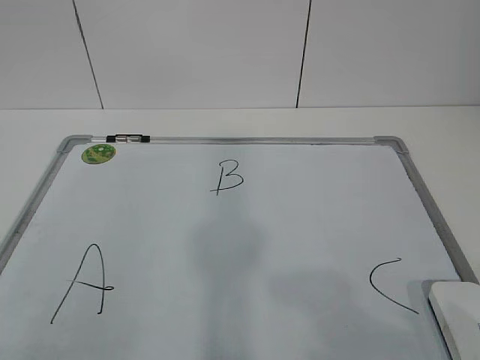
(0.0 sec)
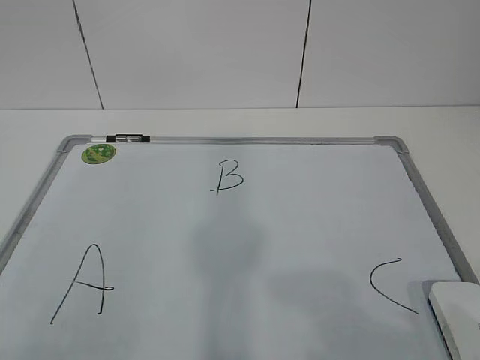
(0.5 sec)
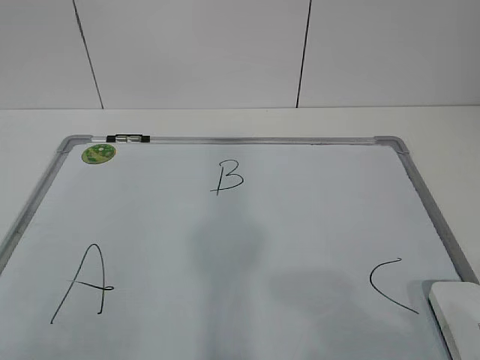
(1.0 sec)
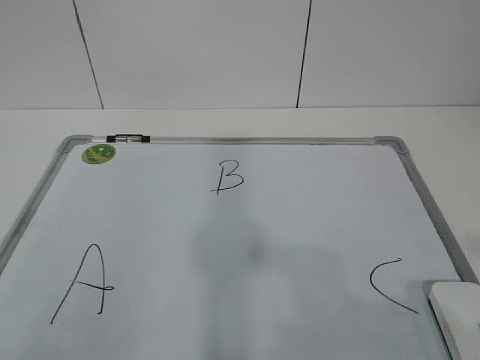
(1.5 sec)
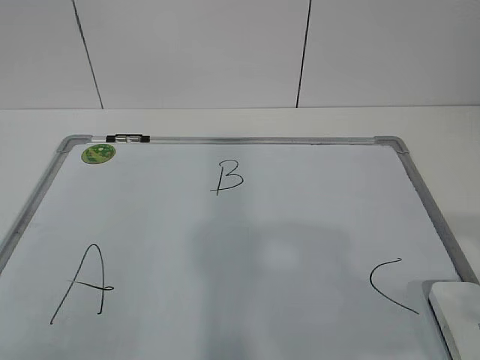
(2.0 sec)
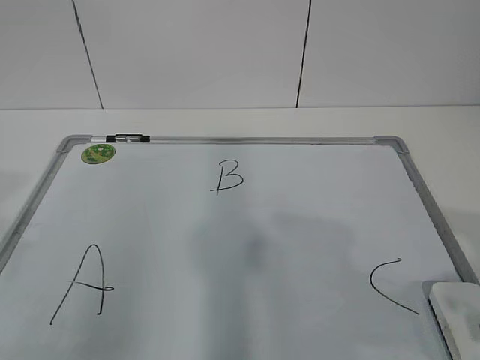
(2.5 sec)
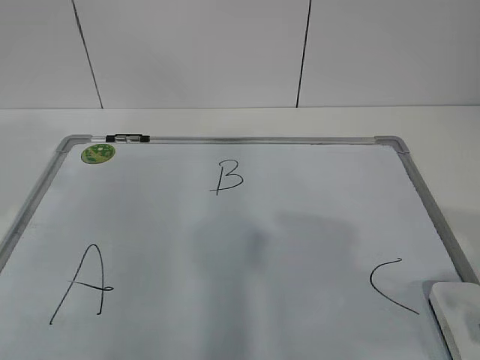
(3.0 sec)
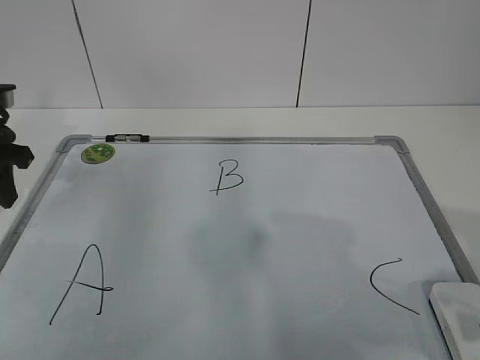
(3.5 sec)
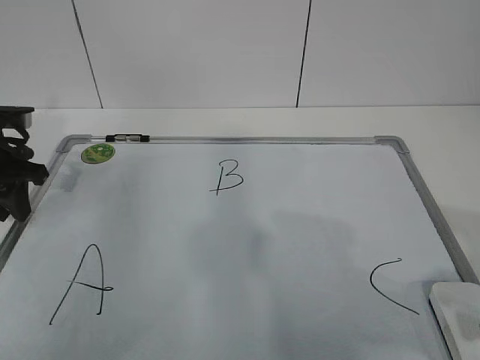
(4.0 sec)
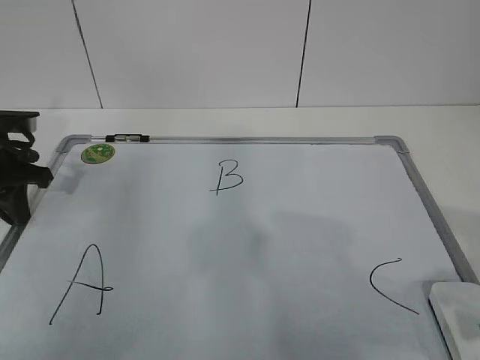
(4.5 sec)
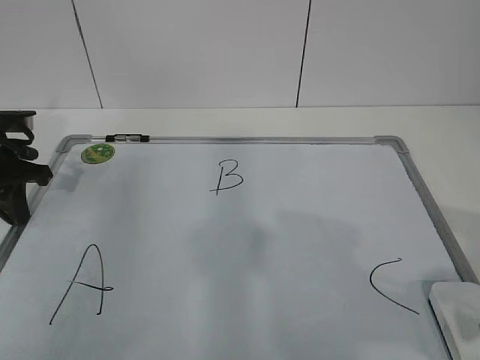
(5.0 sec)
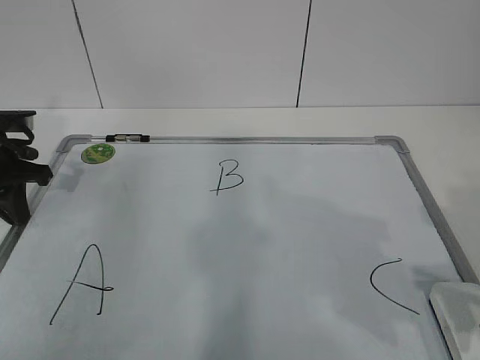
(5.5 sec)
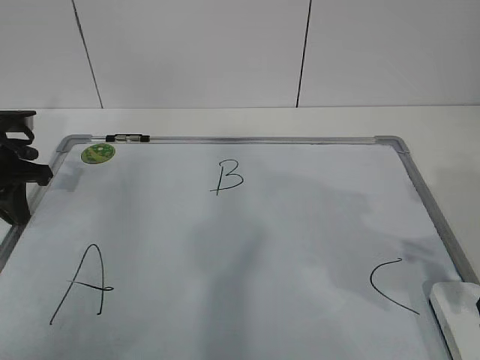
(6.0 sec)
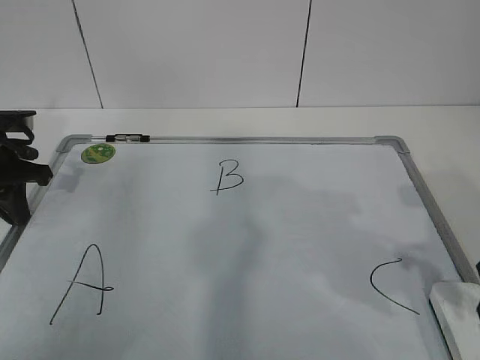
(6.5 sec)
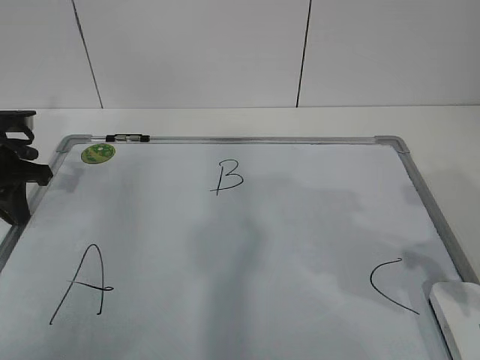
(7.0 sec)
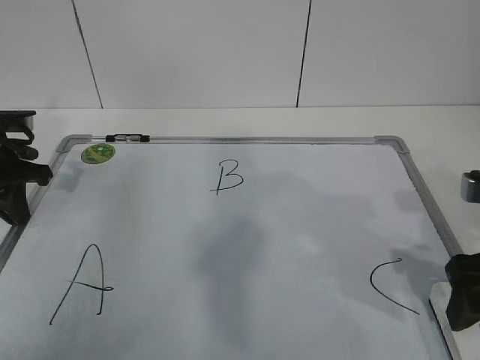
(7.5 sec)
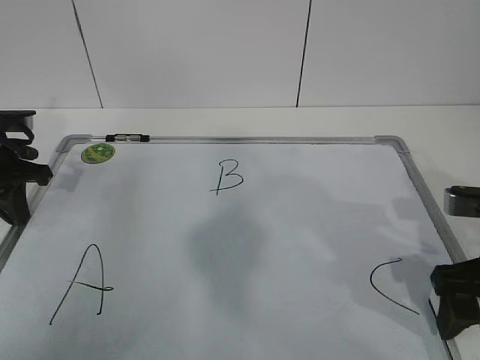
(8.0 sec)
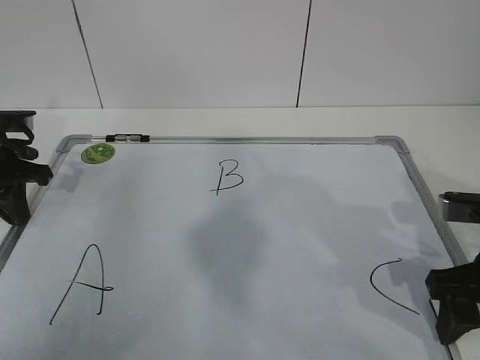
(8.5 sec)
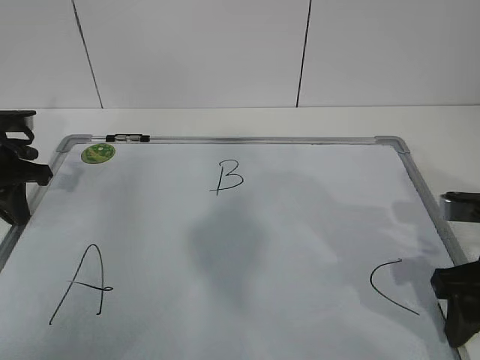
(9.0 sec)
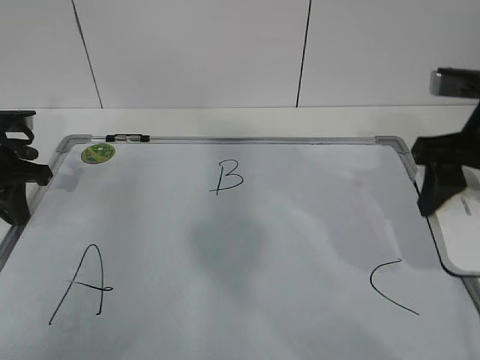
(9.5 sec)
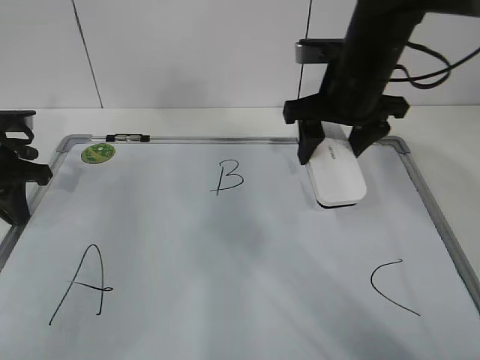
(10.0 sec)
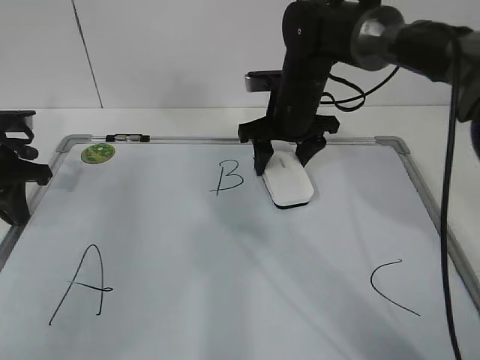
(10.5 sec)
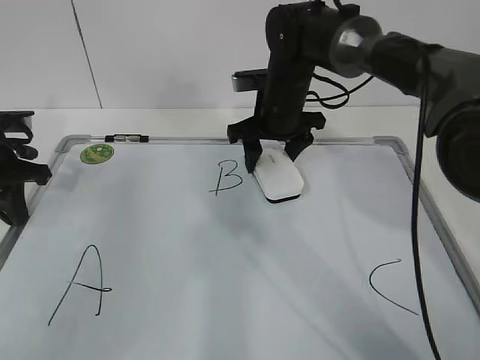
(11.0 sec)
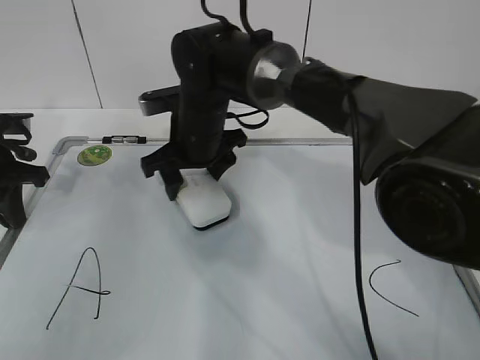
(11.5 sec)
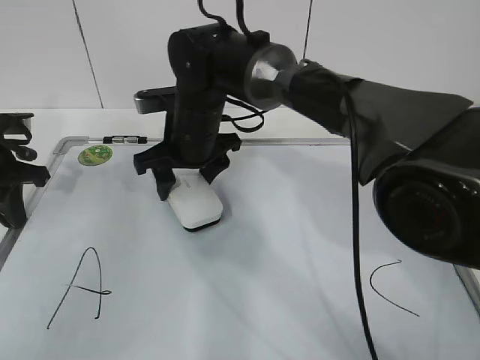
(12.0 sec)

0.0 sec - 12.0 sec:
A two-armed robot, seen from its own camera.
Task of the whole recording: pick up the eraser on the blackboard and erase the letter "B".
Step, 0.0 sec - 3.5 sec: Hold the drawing board steady with your left hand.
Step, 4.0 sec - 6.5 sec: Grab the eraser with your right hand.
Step, 7.0 sec - 11.5 sec: Erase the letter B with your right hand.
2.0 sec - 4.0 sec: The left gripper moves forward, roughly 35 cm.
4.0 sec - 6.0 sec: The right gripper travels forward by about 10 cm, and opens, then closes once more. Meanwhile the left gripper closes.
6.0 sec - 8.0 sec: The right gripper is displaced downward by roughly 5 cm, and opens.
8.0 sec - 10.0 sec: The right gripper shifts about 20 cm forward, to the left and upward, and closes.
10.0 sec - 12.0 sec: The right gripper shifts some 20 cm to the left and downward.

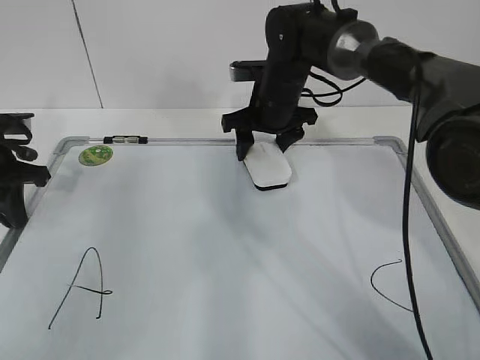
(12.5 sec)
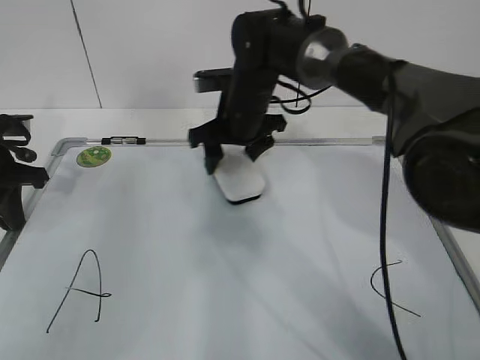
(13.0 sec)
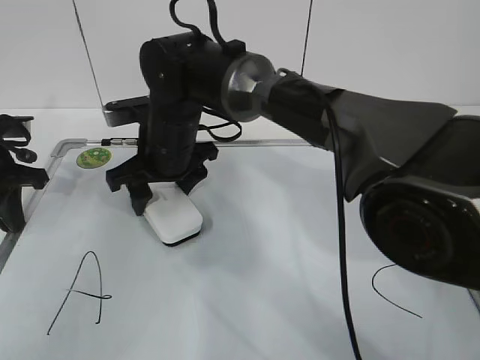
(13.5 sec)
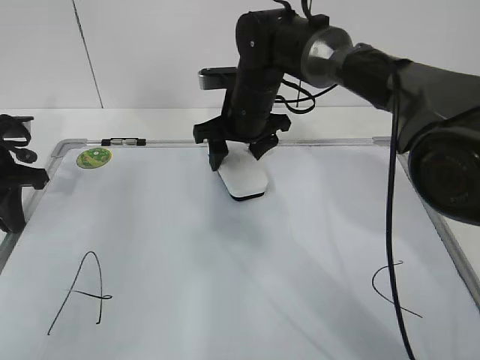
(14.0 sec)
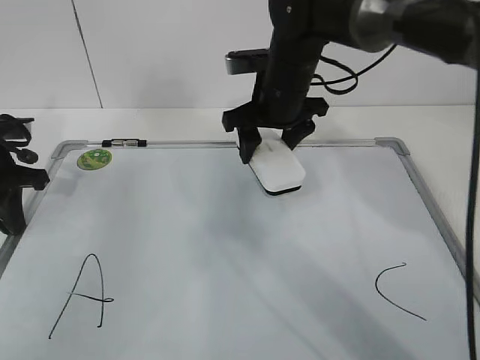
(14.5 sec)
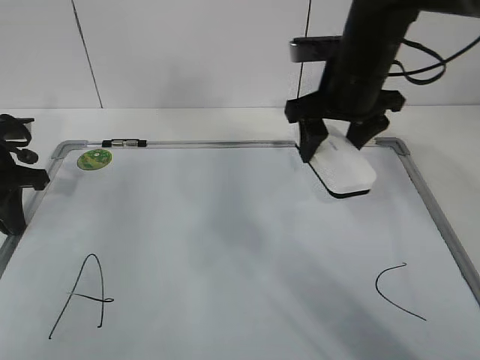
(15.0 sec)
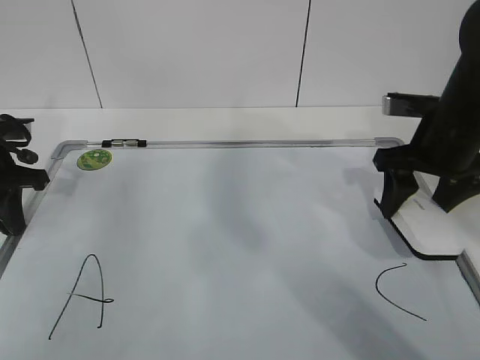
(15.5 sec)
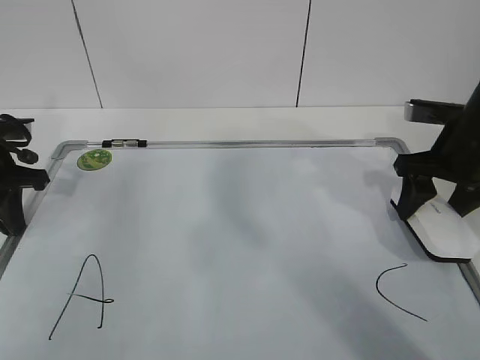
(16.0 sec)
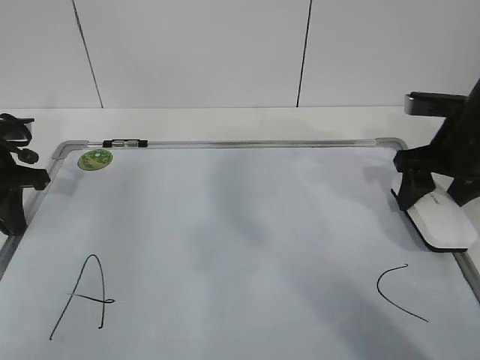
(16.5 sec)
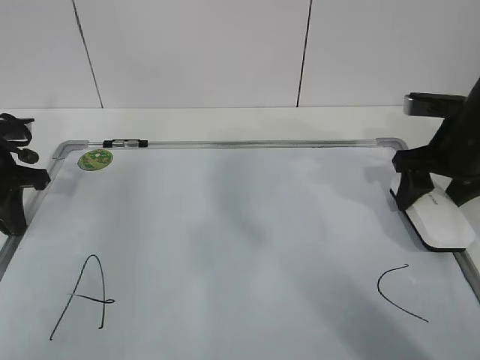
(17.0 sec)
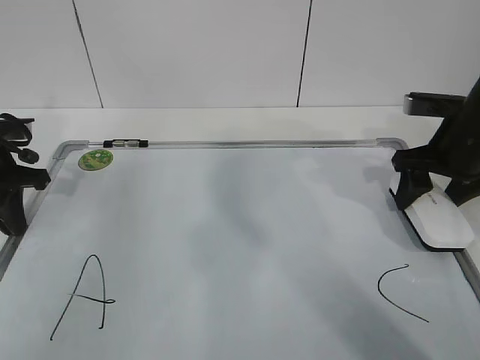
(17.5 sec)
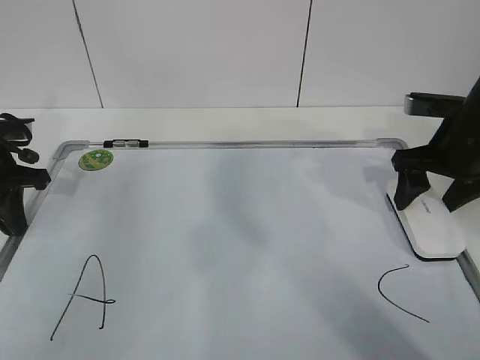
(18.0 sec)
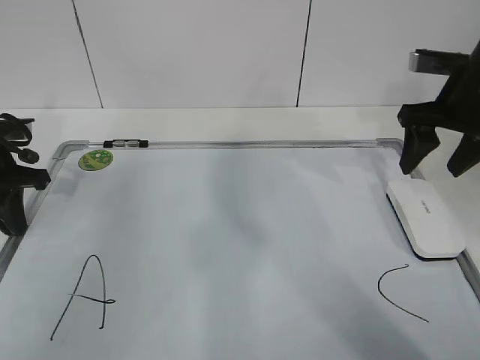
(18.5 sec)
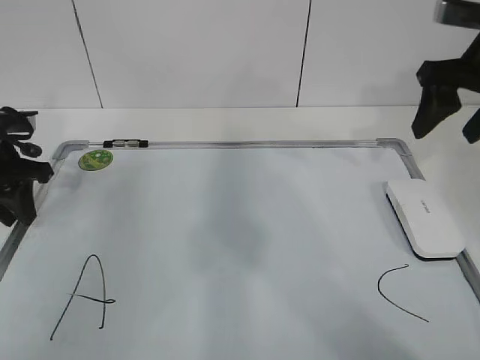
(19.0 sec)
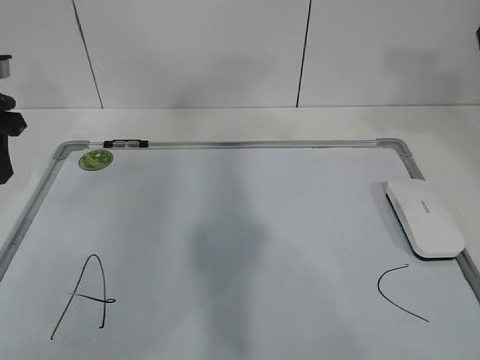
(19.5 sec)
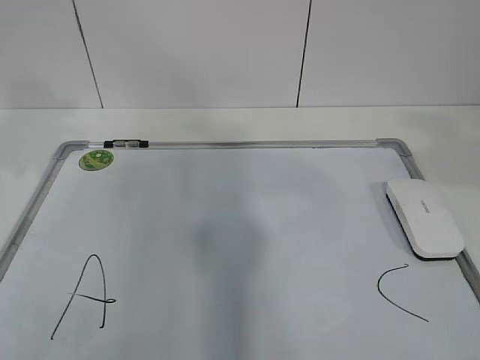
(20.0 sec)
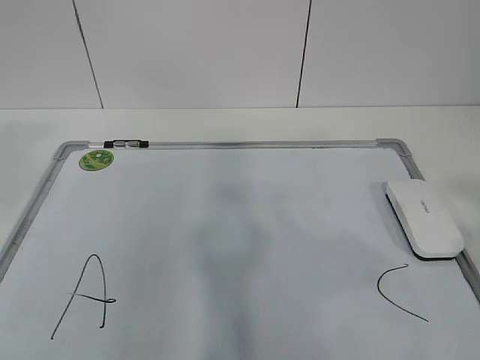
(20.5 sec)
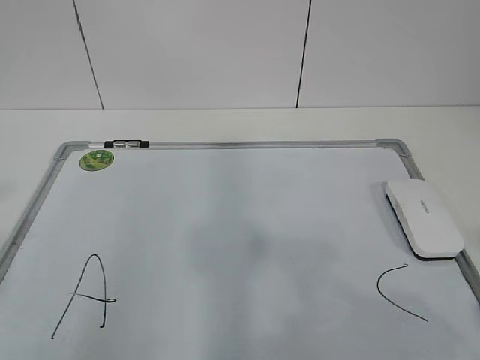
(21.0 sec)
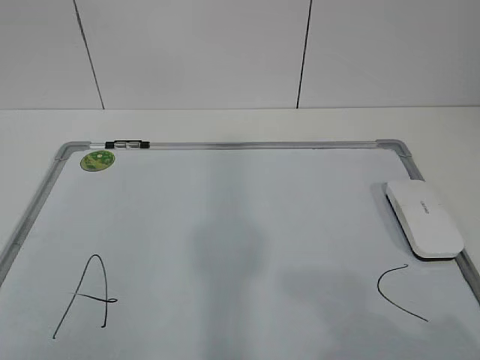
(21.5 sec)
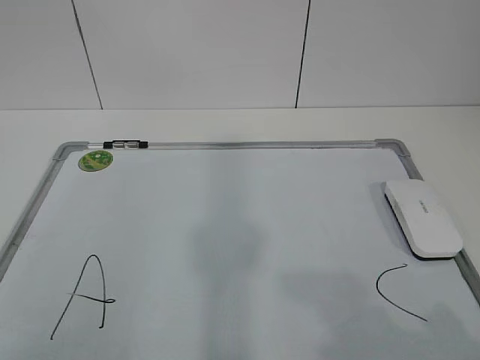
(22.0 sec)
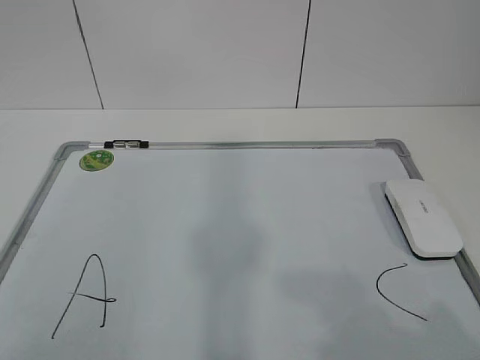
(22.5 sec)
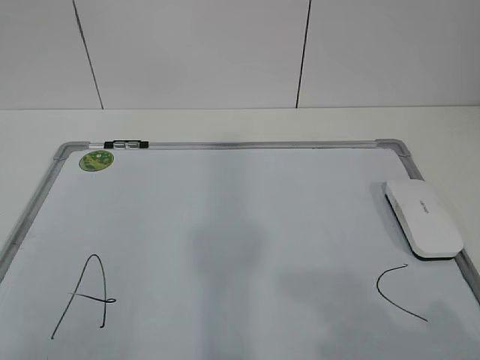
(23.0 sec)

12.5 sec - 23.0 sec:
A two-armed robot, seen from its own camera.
Task of the whole recording: pick up the eraser on the blackboard and erase the letter "B".
Step, 12.5 sec - 15.0 sec: Put down the eraser with your right hand.
12.5 sec - 14.5 sec: The right gripper reaches about 15 cm to the left, then returns.
14.5 sec - 16.5 sec: The right gripper moves to the right, some 20 cm.
16.5 sec - 19.0 sec: The right gripper moves upward, about 10 cm, and opens. The left gripper opens its fingers.
19.0 sec - 21.0 sec: The left gripper travels backward and upward by roughly 35 cm; the right gripper moves backward, roughly 35 cm.

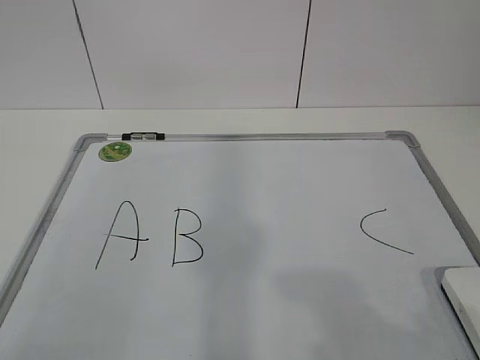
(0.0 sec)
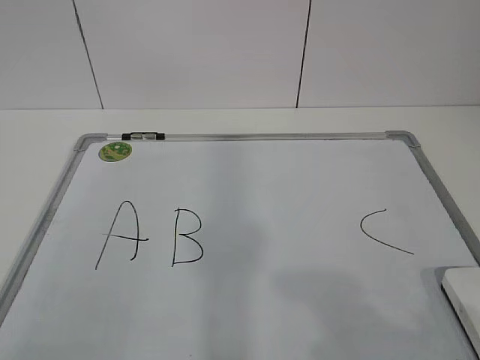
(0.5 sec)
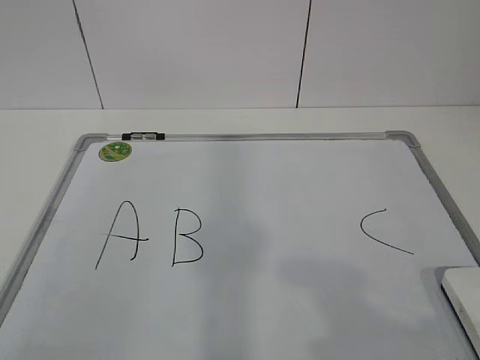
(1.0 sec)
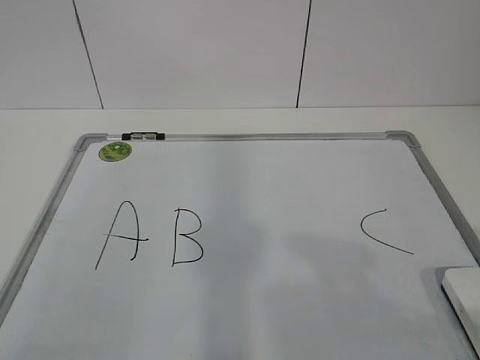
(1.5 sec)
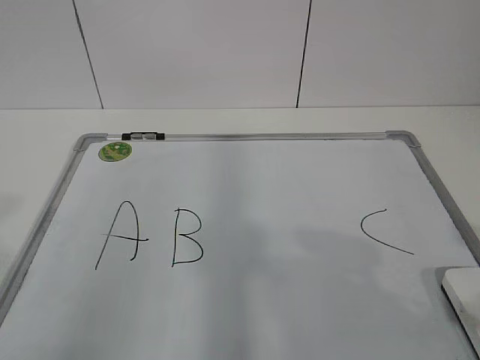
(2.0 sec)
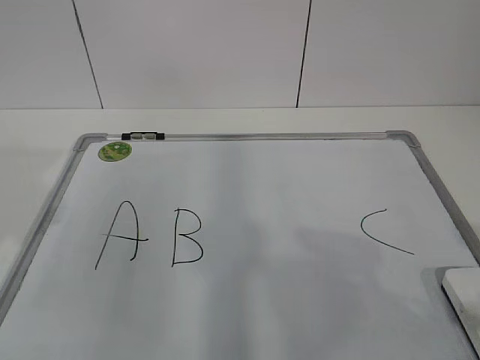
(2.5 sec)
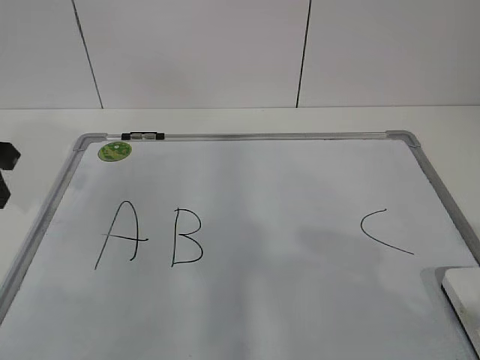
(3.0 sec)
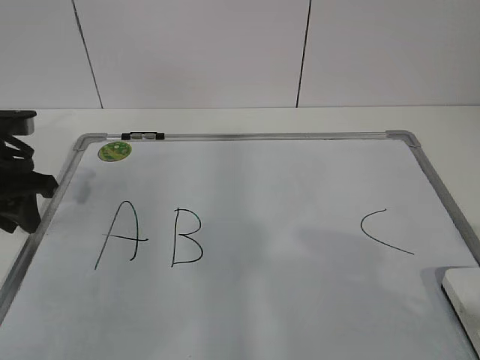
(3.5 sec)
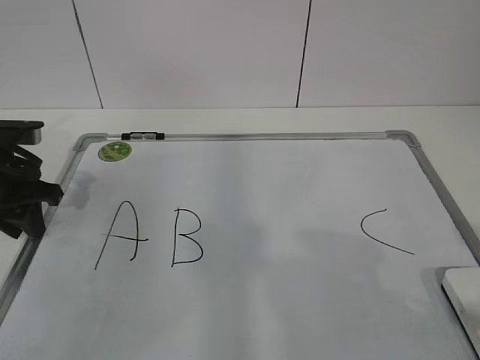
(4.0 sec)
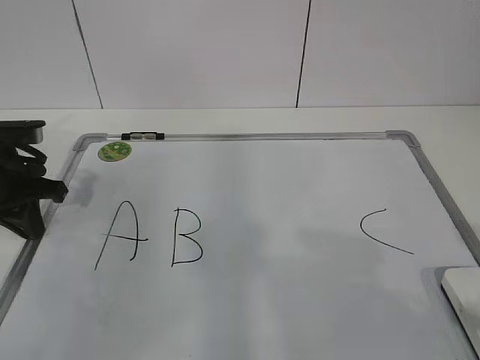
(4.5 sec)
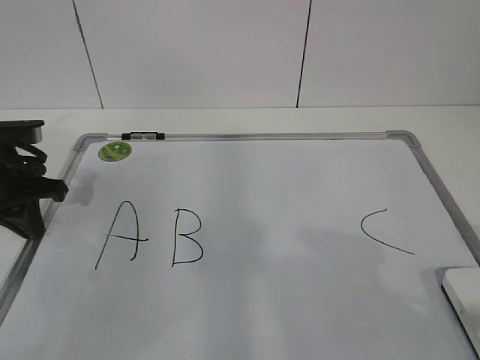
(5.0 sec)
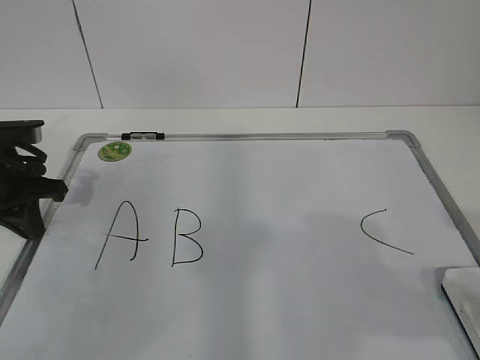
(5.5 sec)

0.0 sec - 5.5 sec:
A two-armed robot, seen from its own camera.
Task of the whole recording: pick up the eraser on the blackboard and erase the letter "B".
Step, 0.0 sec - 3.5 sec: Hold the drawing board steady with your left hand.
2.0 sec - 3.5 sec: The left gripper moves forward and downward, some 30 cm.
3.5 sec - 5.5 sec: The left gripper closes up.
